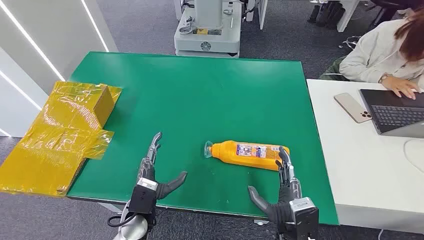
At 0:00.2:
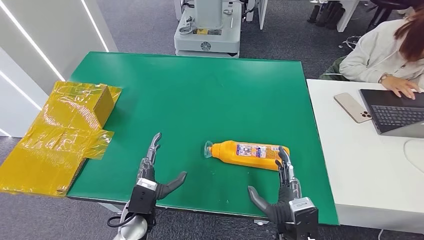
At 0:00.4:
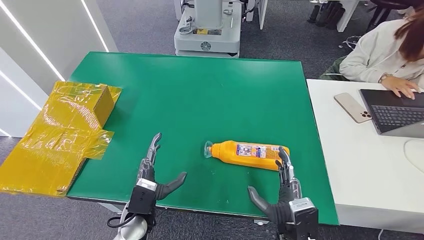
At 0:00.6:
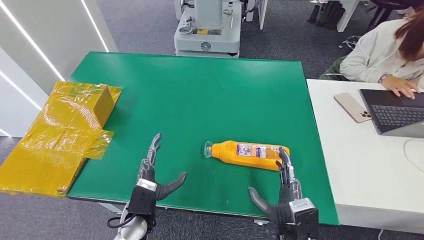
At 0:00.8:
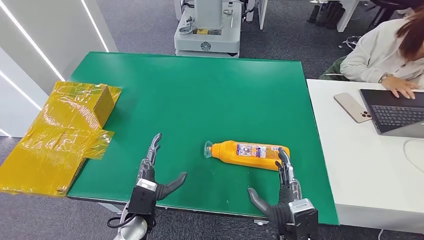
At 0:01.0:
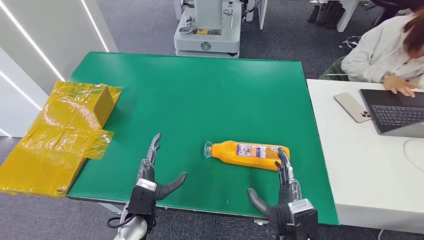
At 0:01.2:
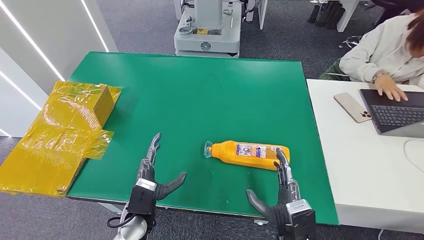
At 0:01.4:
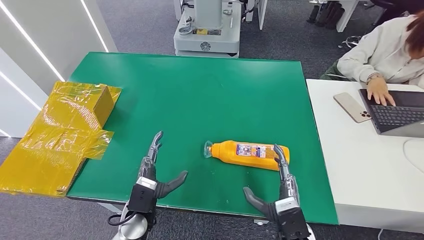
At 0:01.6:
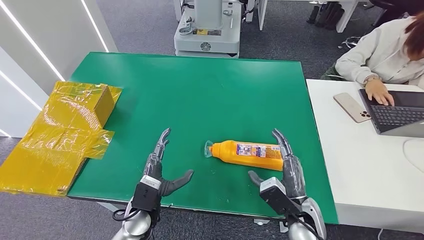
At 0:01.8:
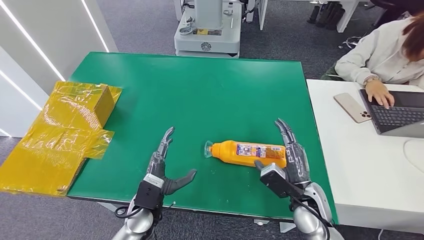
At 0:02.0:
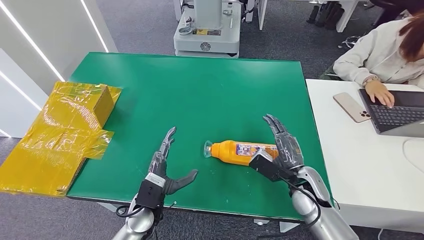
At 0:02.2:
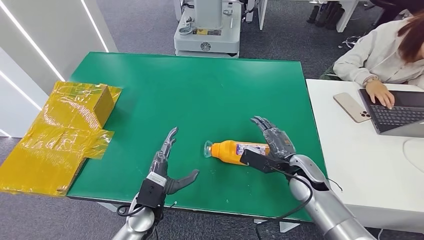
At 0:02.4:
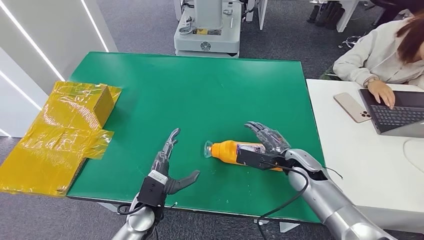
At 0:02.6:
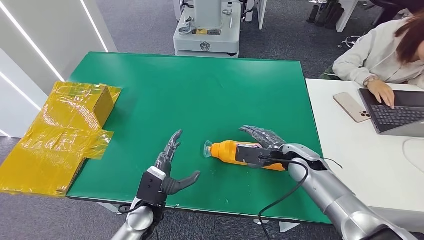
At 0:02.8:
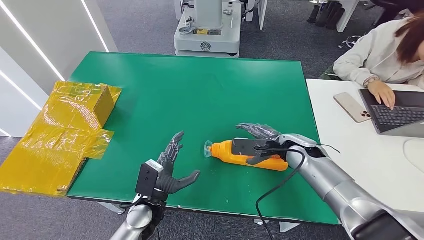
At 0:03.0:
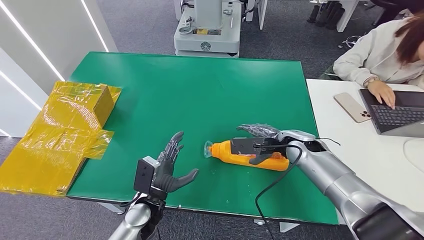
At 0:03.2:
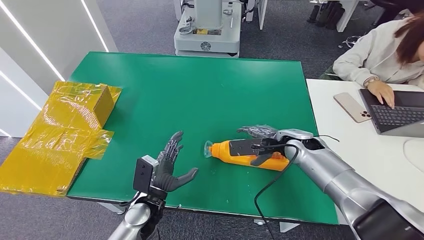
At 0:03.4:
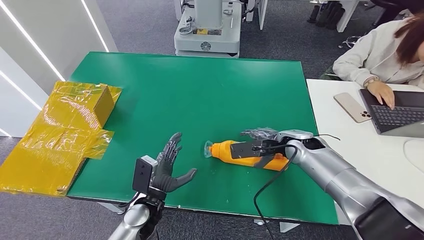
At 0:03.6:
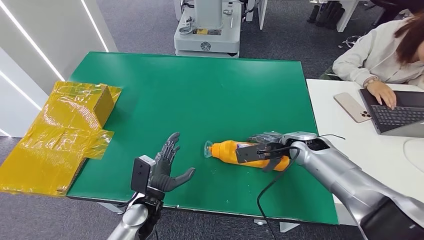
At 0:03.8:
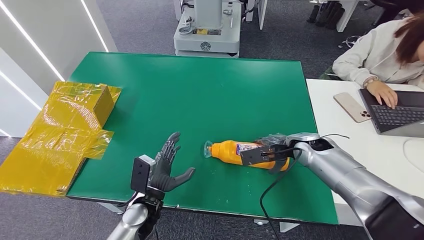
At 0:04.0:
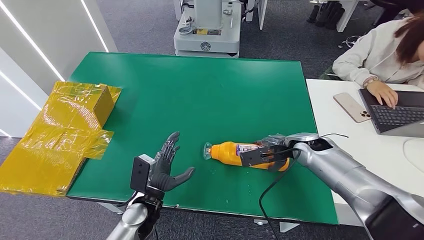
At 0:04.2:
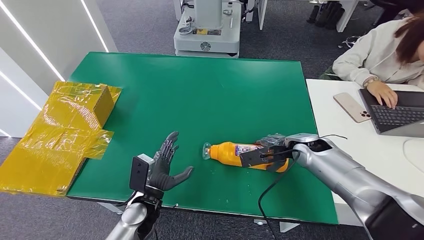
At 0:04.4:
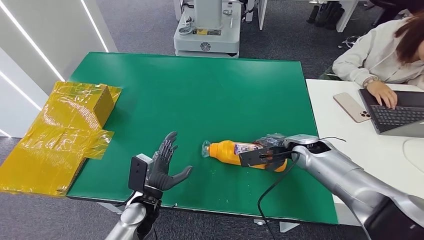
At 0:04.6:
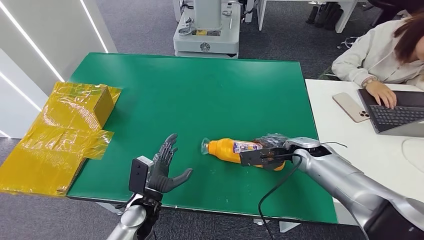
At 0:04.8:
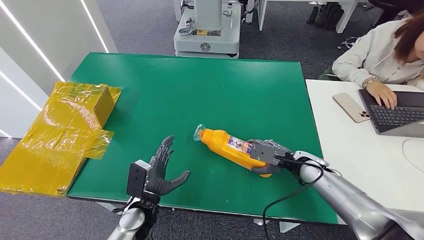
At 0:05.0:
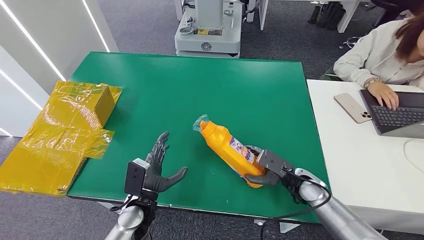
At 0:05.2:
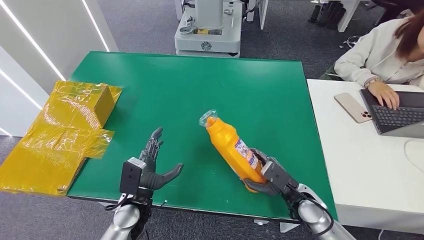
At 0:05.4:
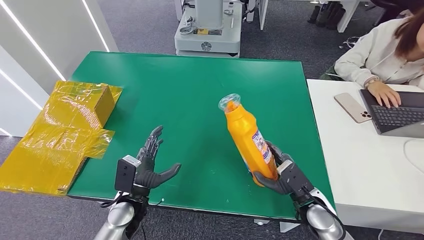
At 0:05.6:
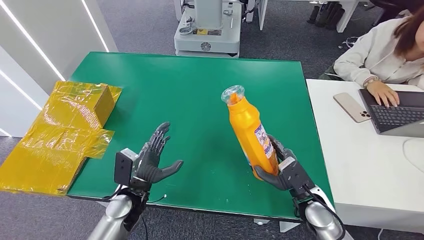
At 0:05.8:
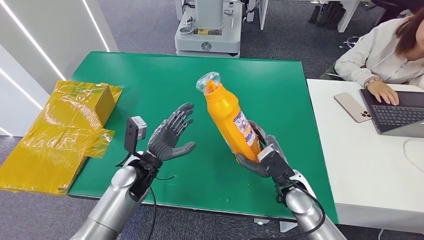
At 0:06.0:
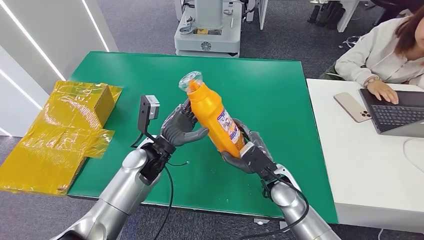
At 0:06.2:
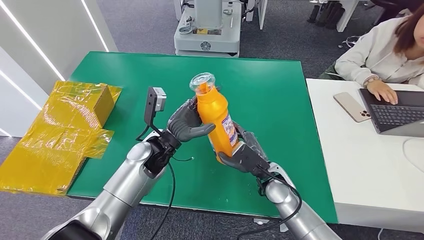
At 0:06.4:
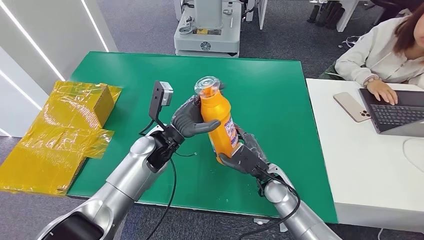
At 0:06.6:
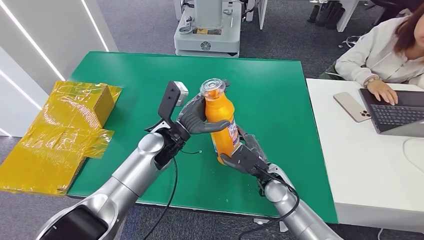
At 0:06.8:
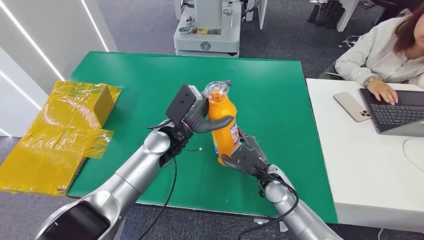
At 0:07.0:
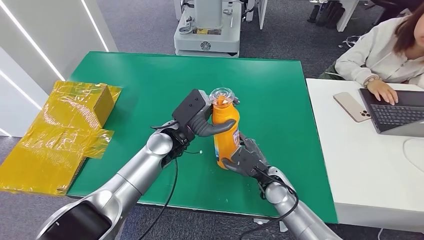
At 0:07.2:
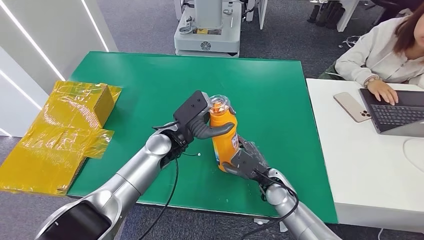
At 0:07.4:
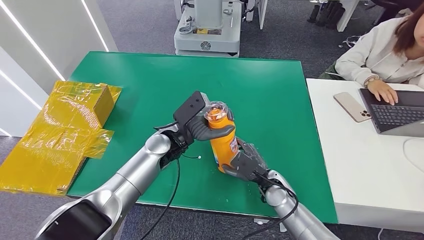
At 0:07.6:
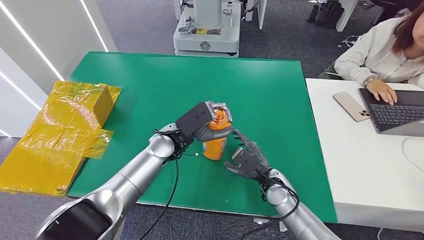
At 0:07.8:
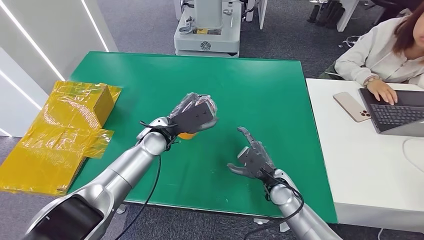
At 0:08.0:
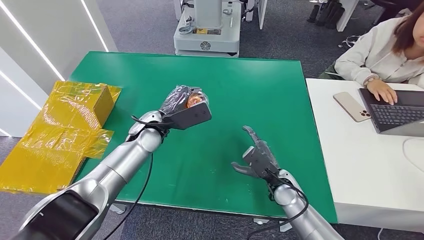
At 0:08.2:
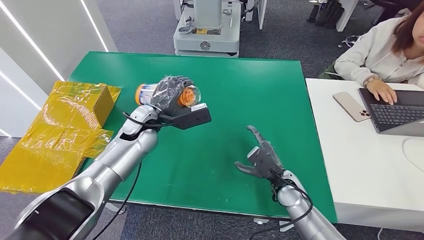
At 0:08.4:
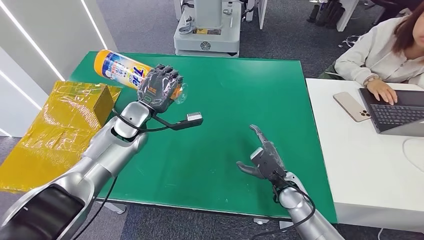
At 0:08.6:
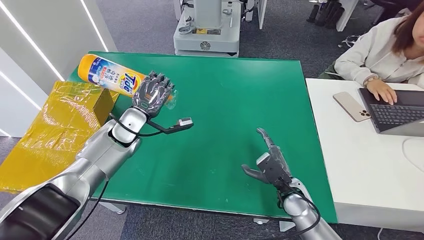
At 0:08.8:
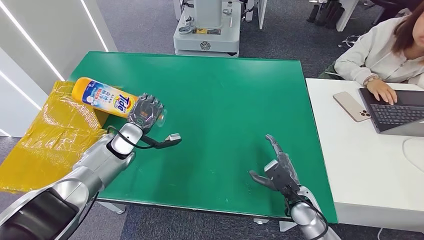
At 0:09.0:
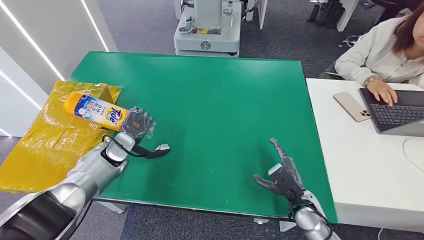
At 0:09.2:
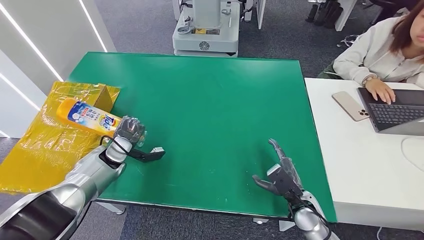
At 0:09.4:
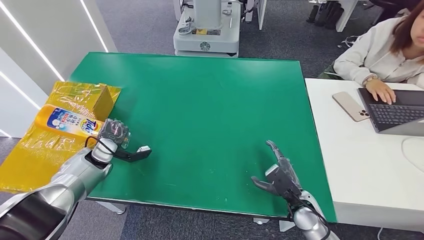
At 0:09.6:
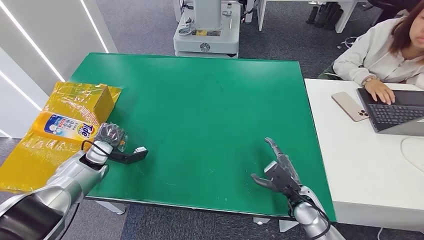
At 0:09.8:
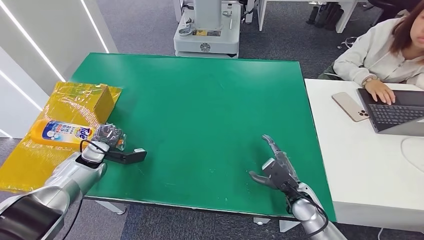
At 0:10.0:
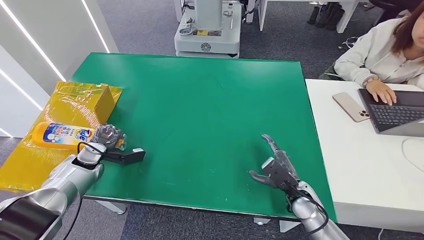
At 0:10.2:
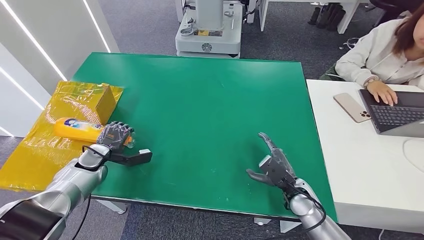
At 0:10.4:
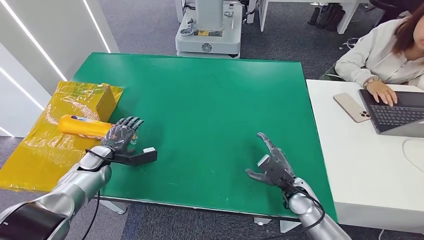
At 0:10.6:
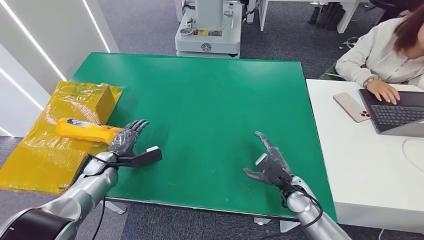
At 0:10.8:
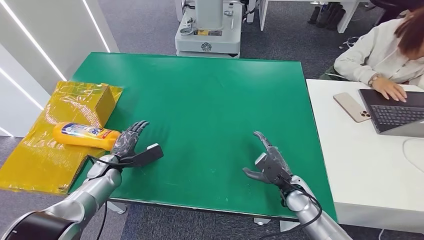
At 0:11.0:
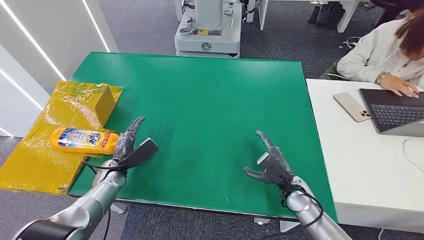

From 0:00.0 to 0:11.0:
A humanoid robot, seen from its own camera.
Step, from 0:00.0 to 0:05.4: Pick up the bottle from the table.
Step, from 0:05.6 to 0:11.0: Turn the bottle to the front side.
From 0:01.6 to 0:03.2: The right hand goes approximately 20 cm forward and upward.
From 0:03.2 to 0:04.8: The right hand moves downward and to the right, approximately 10 cm.
From 0:07.8 to 0:09.4: The right hand shifts roughly 5 cm to the right; the left hand moves to the left and downward, about 25 cm.
From 0:09.4 to 0:11.0: The left hand ends up roughly 5 cm from where it was.

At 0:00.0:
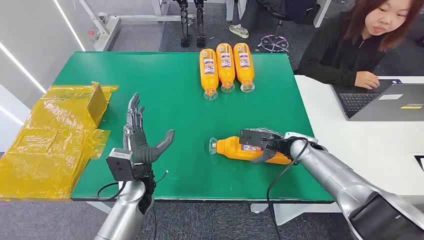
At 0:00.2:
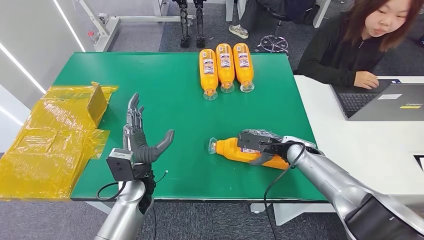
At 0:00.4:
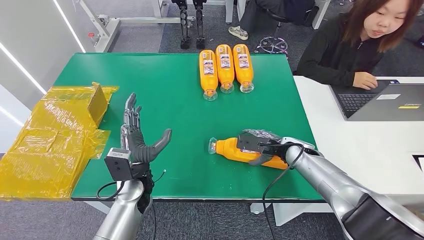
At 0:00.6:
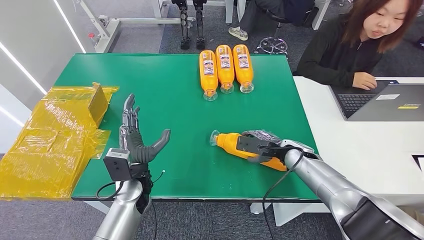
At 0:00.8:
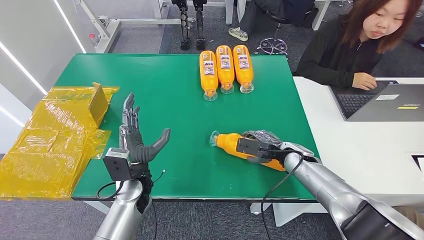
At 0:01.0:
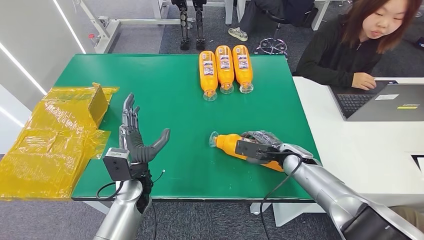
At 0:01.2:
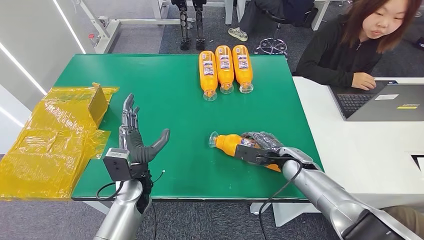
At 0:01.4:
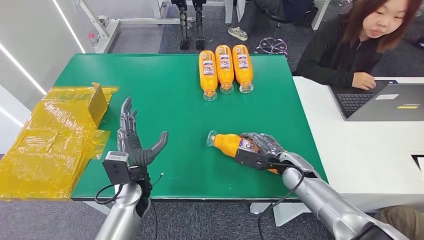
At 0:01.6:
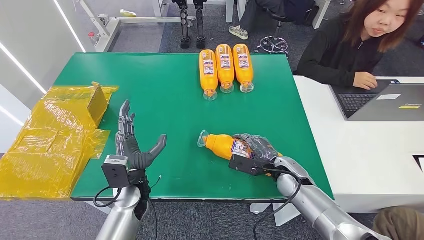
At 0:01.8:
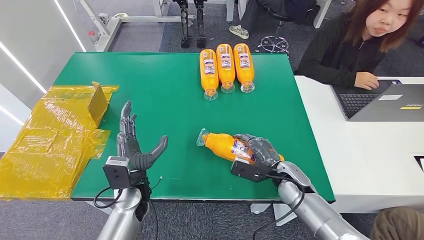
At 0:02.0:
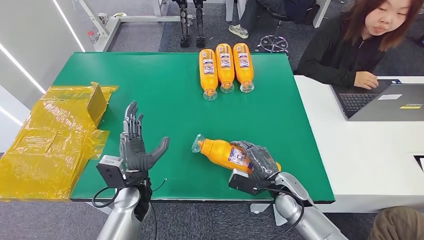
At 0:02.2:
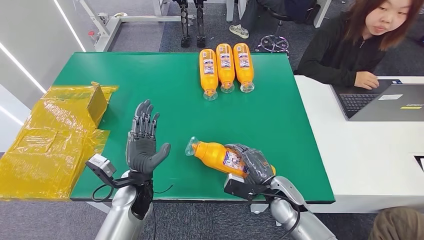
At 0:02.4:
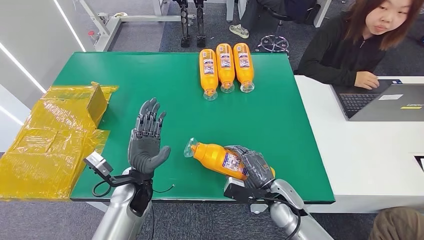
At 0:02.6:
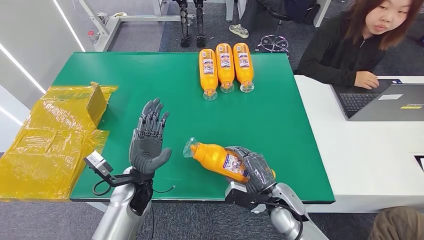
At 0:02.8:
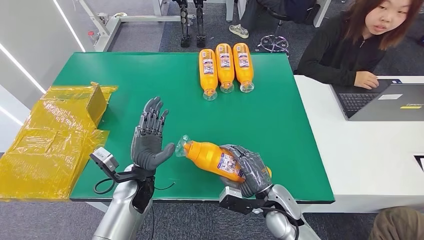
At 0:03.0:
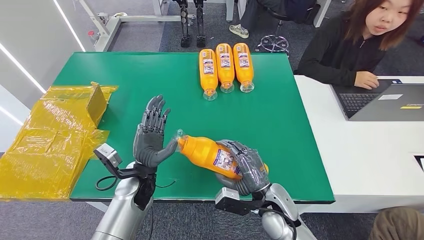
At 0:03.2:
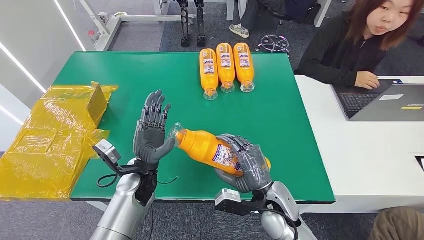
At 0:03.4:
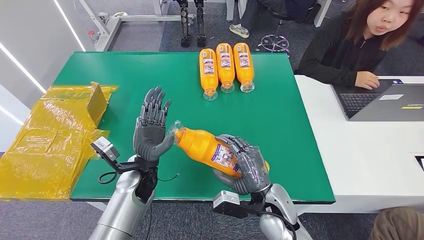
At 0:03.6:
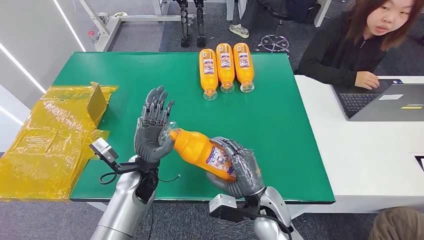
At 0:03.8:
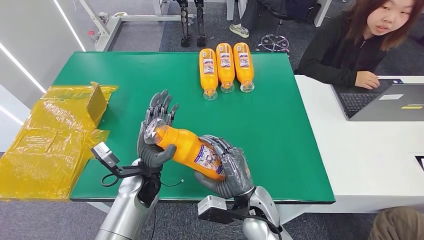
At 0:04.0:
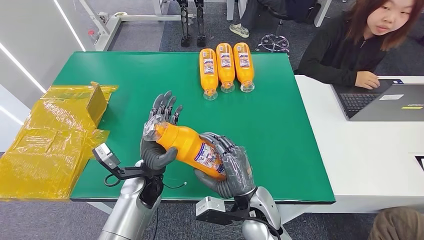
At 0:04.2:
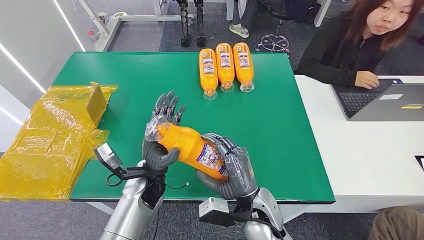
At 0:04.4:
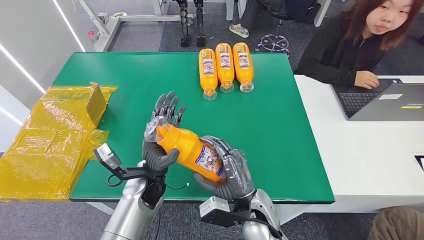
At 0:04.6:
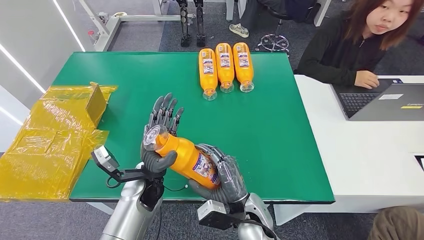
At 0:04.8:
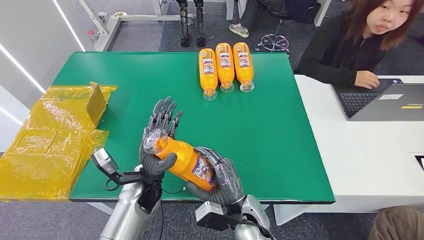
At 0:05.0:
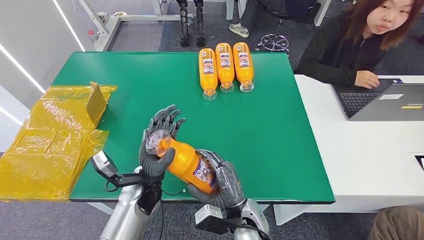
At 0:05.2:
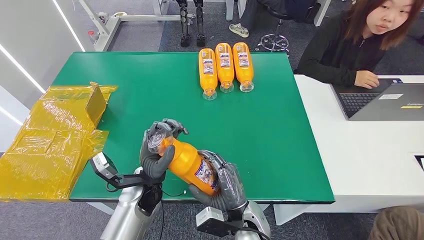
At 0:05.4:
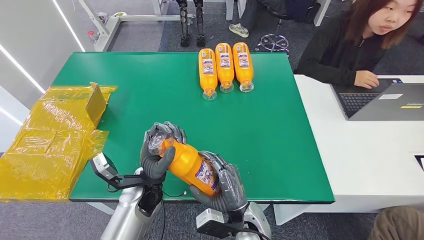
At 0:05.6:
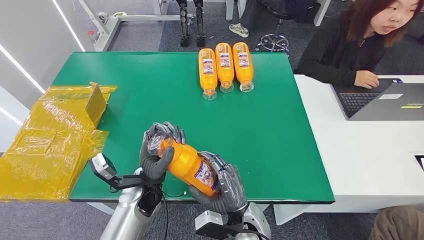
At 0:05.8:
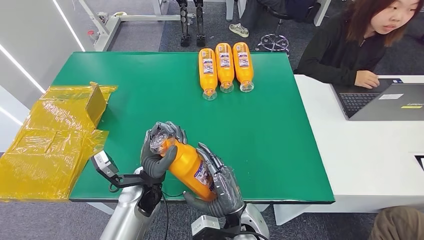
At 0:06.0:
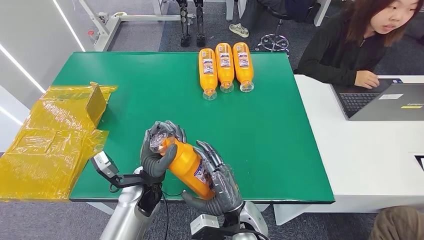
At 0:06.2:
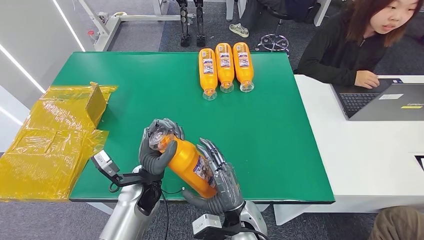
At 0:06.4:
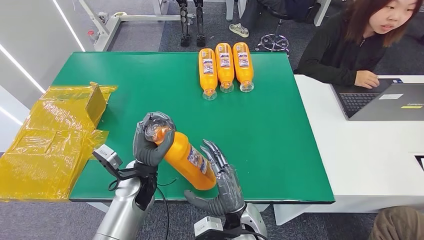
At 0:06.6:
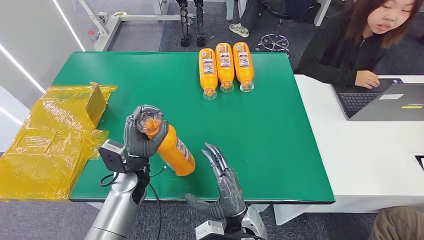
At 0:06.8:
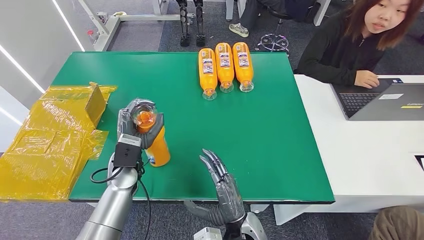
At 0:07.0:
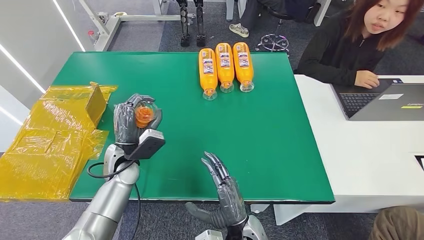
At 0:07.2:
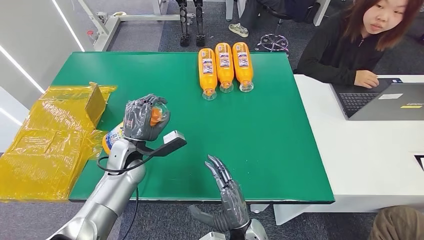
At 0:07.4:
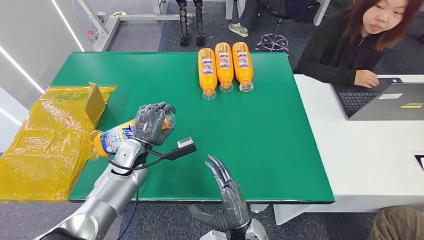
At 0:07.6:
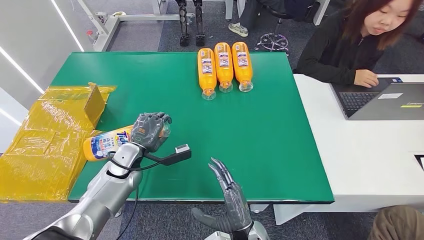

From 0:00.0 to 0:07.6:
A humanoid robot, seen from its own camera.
Step, from 0:00.0 to 0:04.4: Pick up the bottle from the table.
From 0:01.6 to 0:03.0: The right hand moves backward and to the left, roughly 10 cm.
From 0:03.0 to 0:04.6: The right hand shifts approximately 10 cm to the left.
From 0:04.6 to 0:06.0: The hands move only a little.
From 0:06.0 to 0:07.6: The right hand moves some 5 cm, while the left hand moves to the left and forward, roughly 15 cm.
